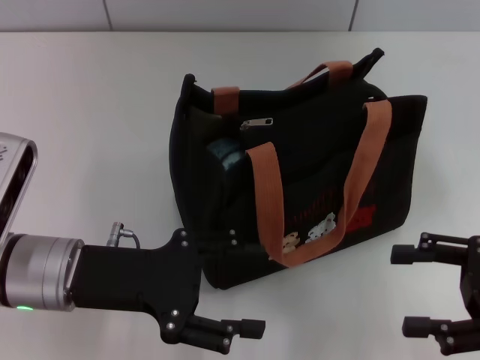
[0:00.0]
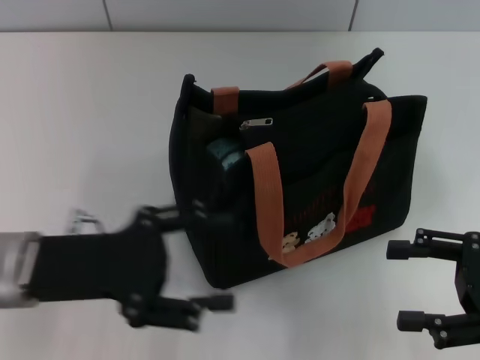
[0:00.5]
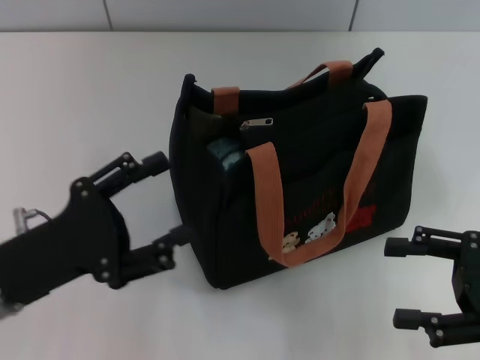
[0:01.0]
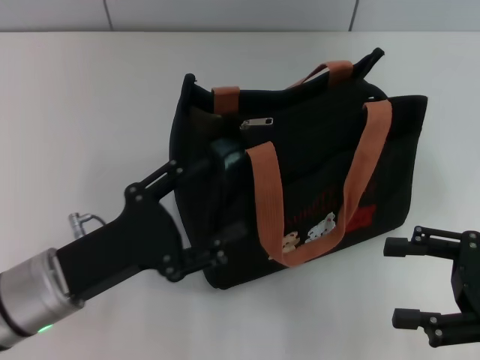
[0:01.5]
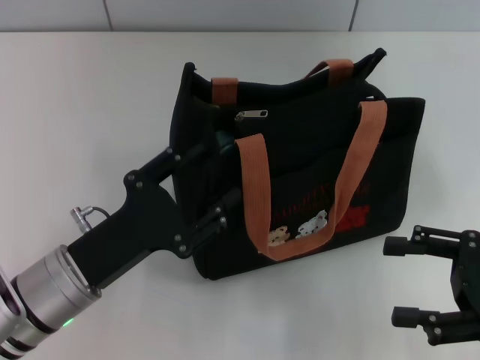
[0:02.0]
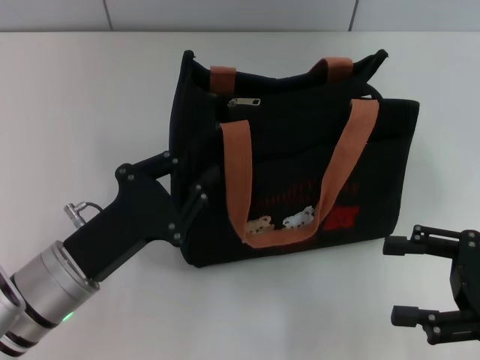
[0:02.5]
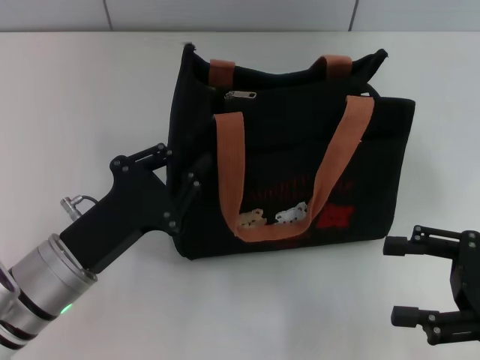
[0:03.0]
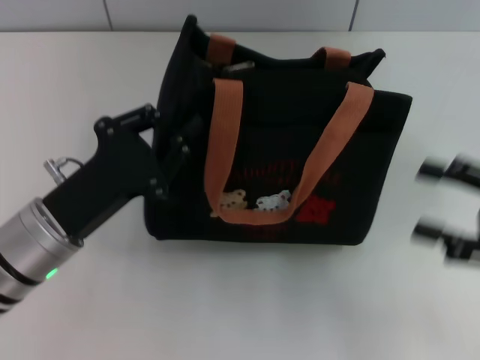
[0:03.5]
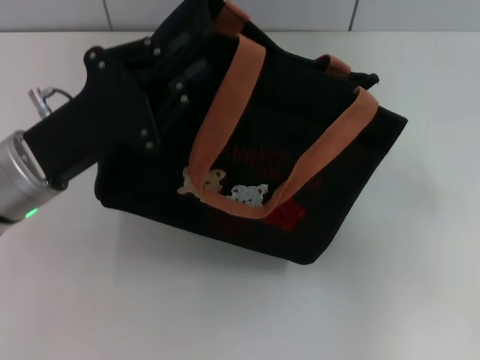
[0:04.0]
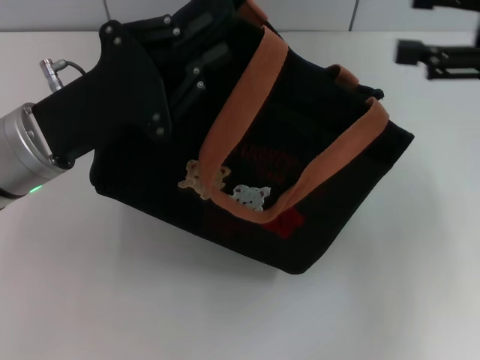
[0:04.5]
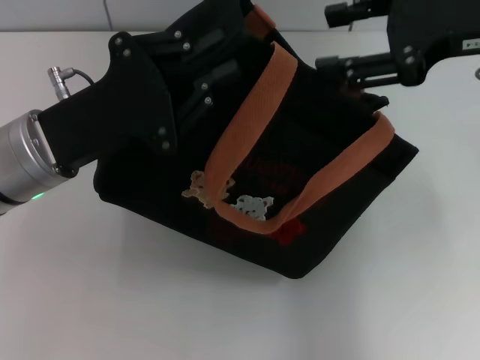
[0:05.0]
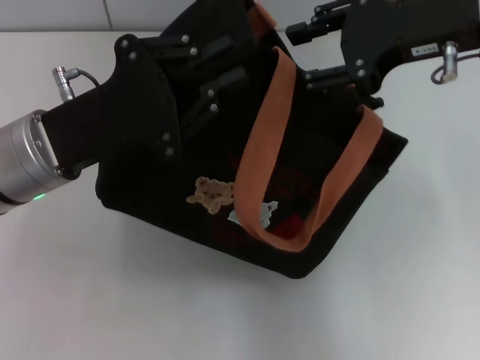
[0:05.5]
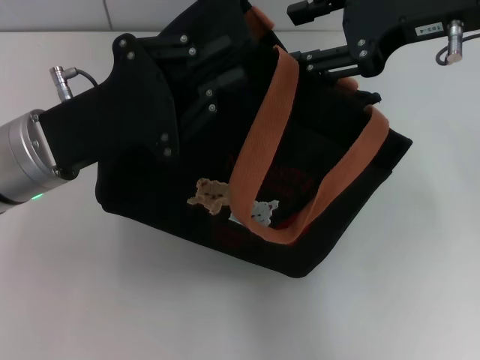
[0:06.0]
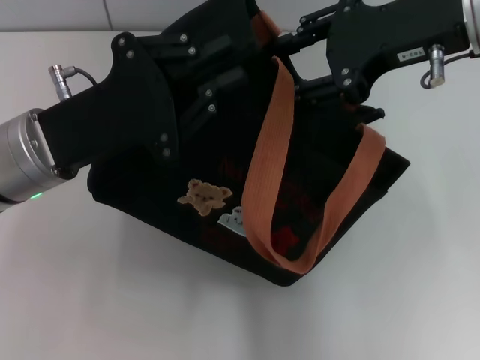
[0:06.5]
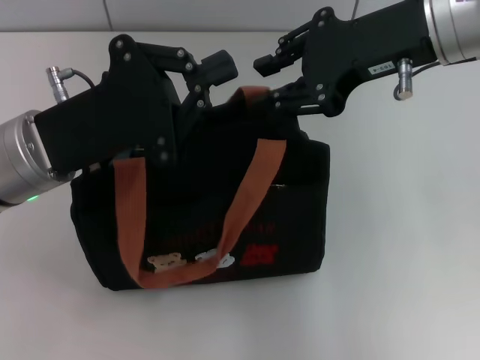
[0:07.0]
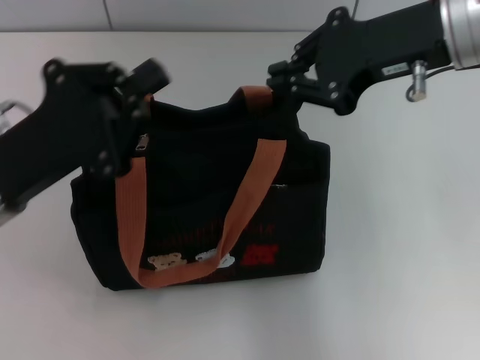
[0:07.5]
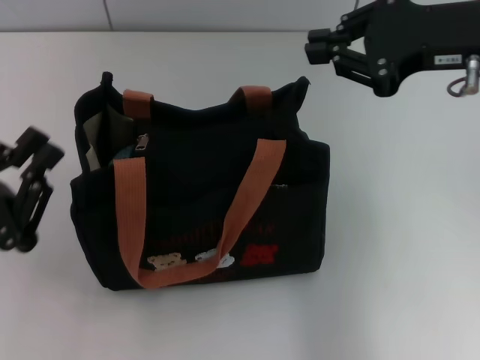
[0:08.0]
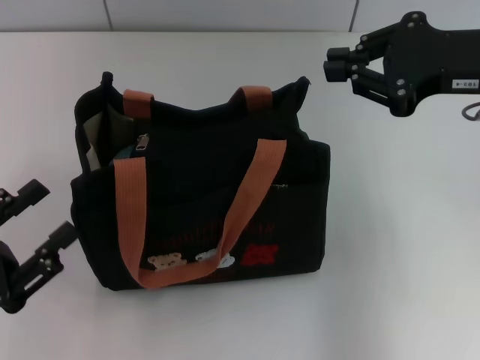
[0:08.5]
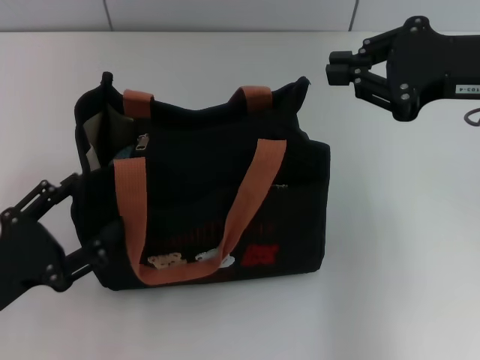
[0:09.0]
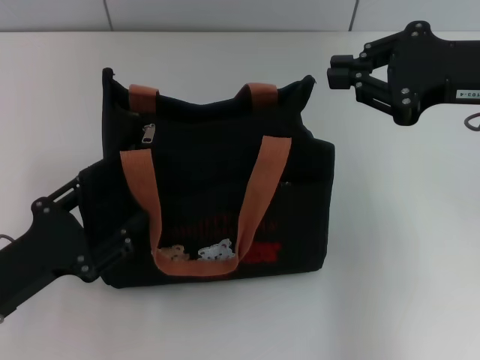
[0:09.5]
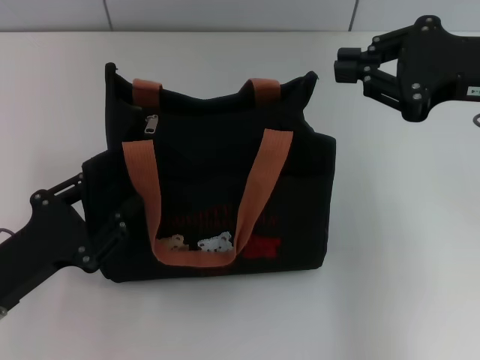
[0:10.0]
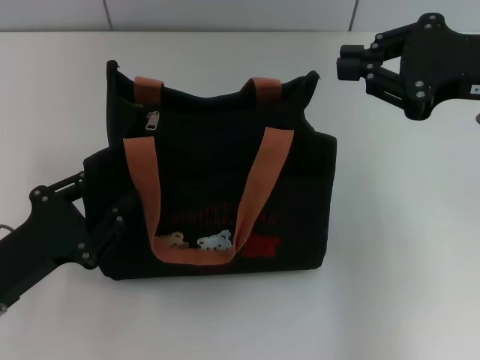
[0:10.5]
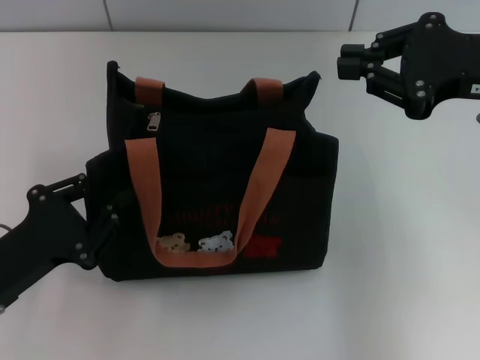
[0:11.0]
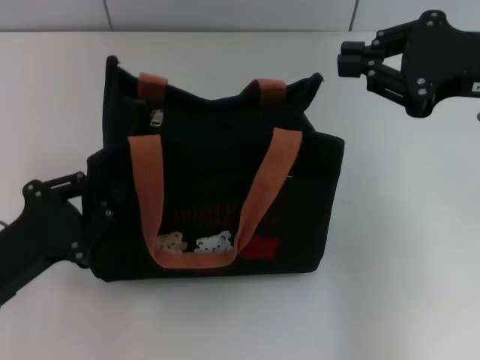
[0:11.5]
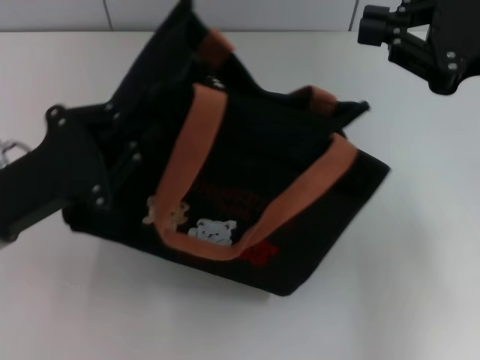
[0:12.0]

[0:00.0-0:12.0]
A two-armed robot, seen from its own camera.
0:00.0 to 0:02.0: The left gripper shifts by roughly 5 cm.
0:02.0 to 0:04.0: The right gripper goes approximately 5 cm upward, while the left gripper heads upward and forward, covering approximately 10 cm, and closes.
0:04.0 to 0:06.0: The right gripper shifts about 20 cm to the left, upward and forward.
0:06.0 to 0:08.0: The left gripper is displaced backward, to the left and downward by approximately 15 cm; the right gripper closes.
0:08.0 to 0:10.0: The left gripper opens its fingers.
0:10.0 to 0:12.0: The left gripper heads upward and forward, covering approximately 10 cm, and closes its fingers.

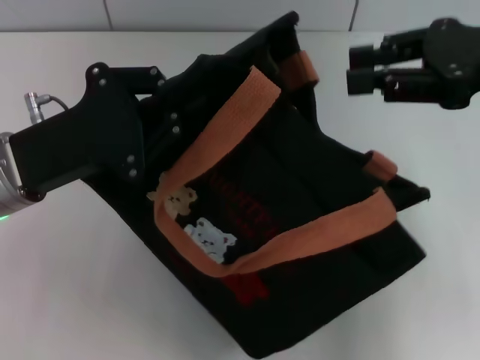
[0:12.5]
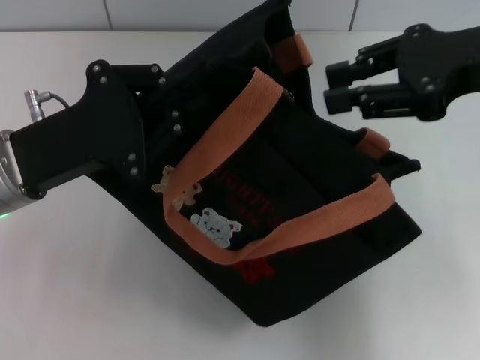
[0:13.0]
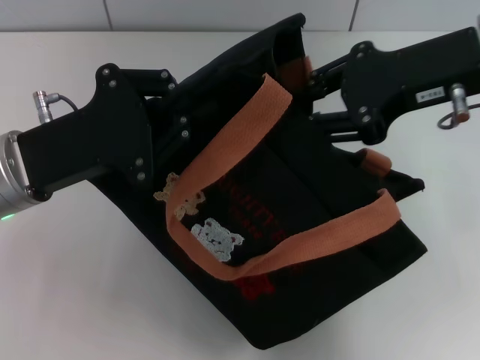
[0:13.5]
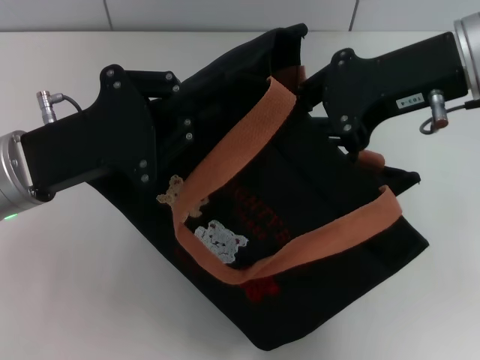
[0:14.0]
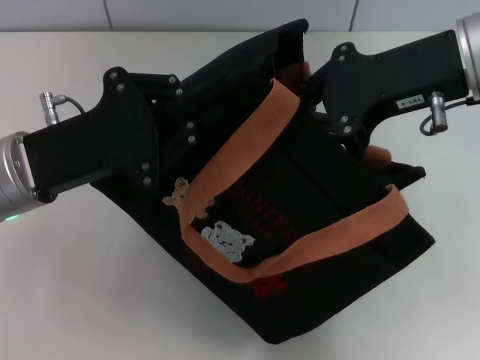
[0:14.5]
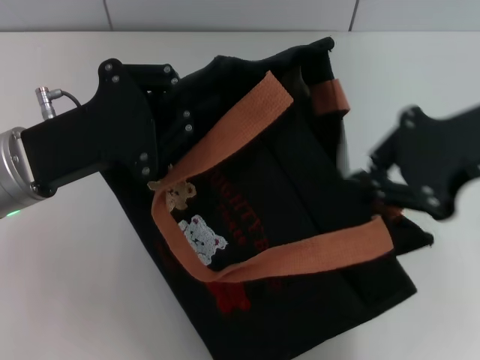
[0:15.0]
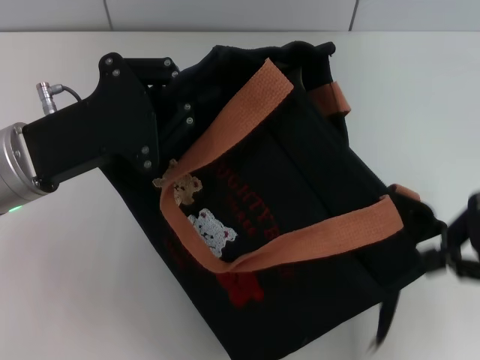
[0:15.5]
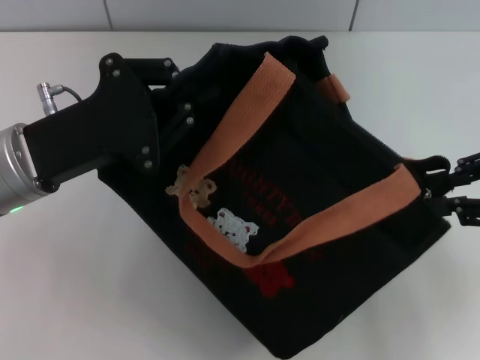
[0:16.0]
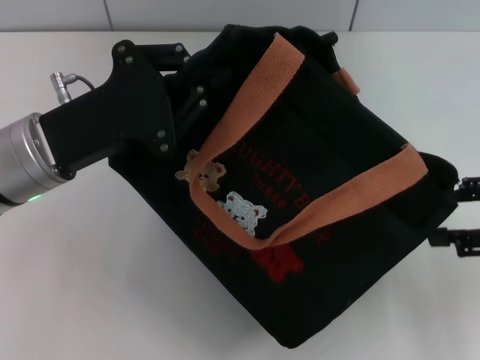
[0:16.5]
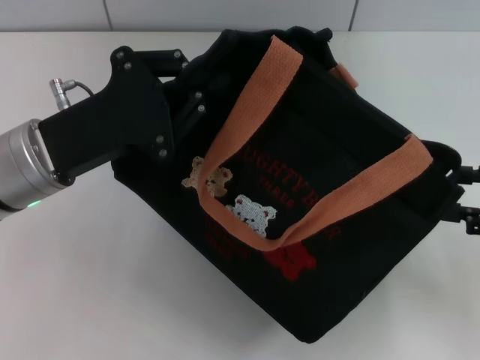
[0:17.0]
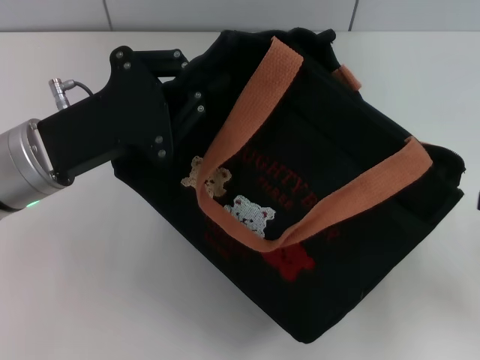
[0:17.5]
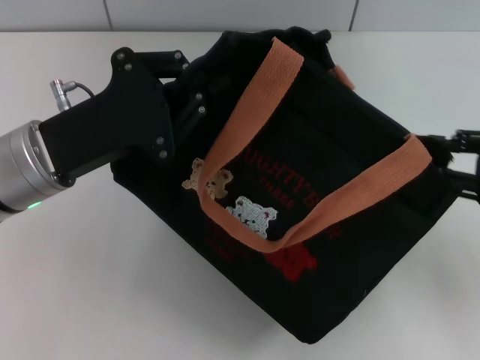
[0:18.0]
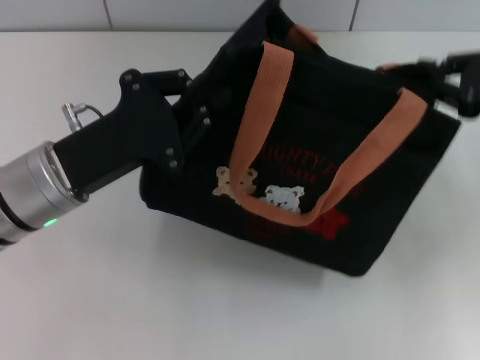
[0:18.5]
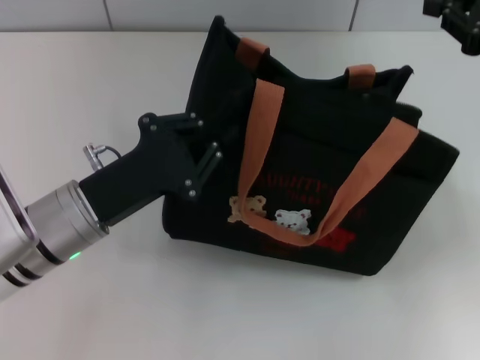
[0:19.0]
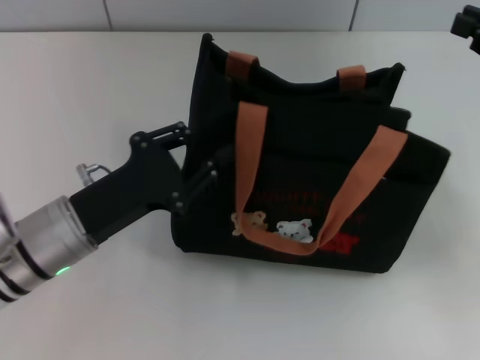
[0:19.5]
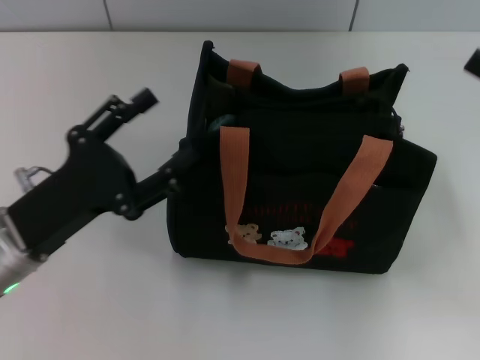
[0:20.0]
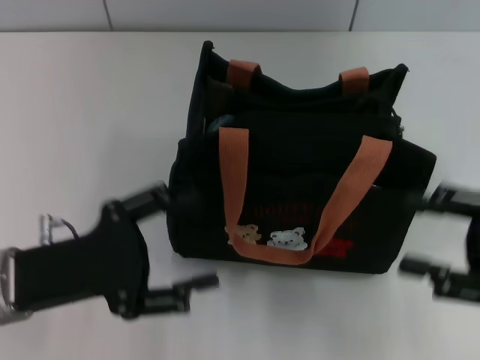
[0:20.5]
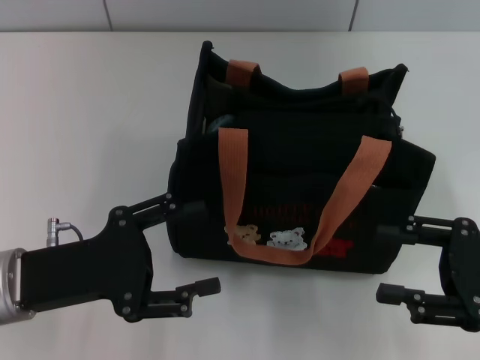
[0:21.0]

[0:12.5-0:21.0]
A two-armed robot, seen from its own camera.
Step, 0:12.5 to 0:16.5: Pull open the zipper with your right hand.
Step, 0:17.0 to 0:19.5: Grab the bag with your left hand.
0:12.5 to 0:14.5: The right gripper is displaced to the left by about 10 cm.
0:14.5 to 0:16.5: The right gripper moves to the right, downward and backward, approximately 20 cm, and opens up.
0:16.5 to 0:19.0: The left gripper is displaced downward by some 5 cm. Meanwhile the right gripper moves forward, roughly 10 cm, and closes.
0:19.0 to 0:21.0: The left gripper shifts by about 5 cm, and opens; the right gripper moves backward and downward, approximately 15 cm, and opens up.
